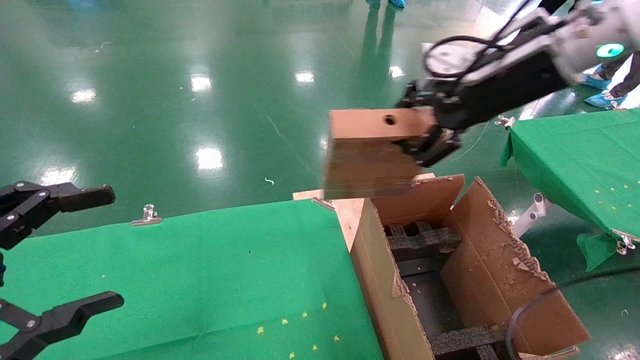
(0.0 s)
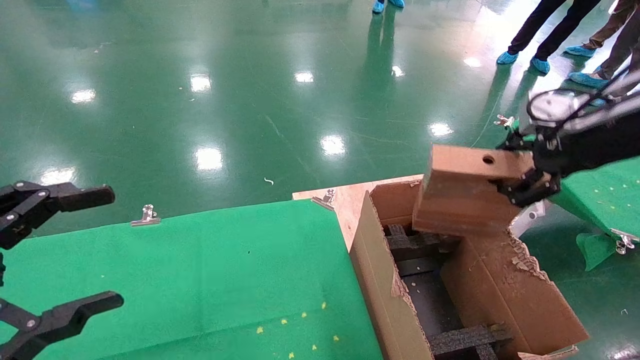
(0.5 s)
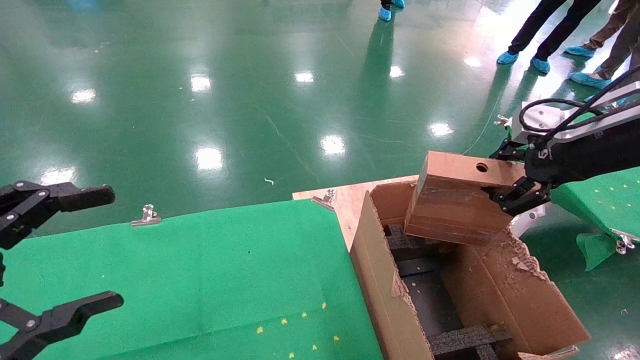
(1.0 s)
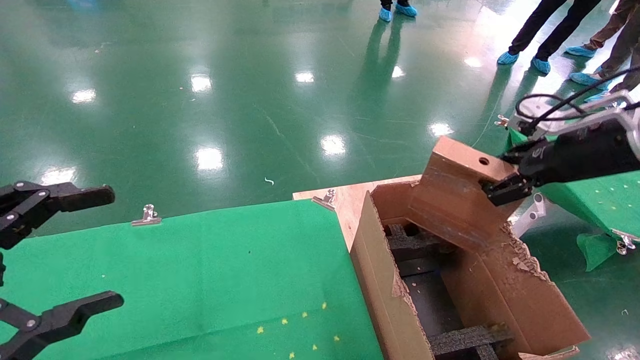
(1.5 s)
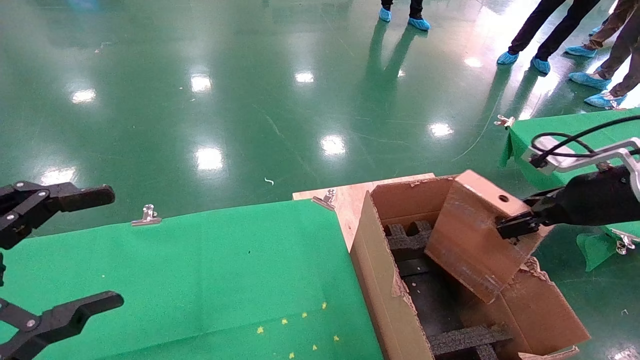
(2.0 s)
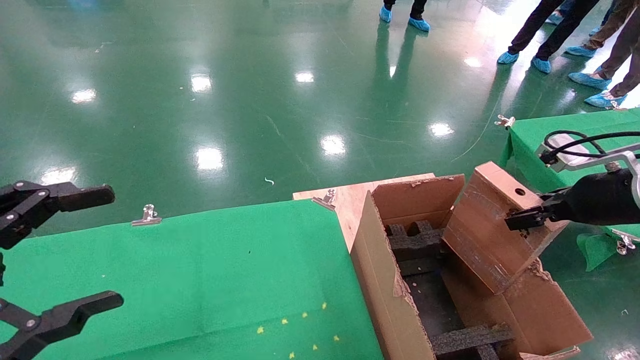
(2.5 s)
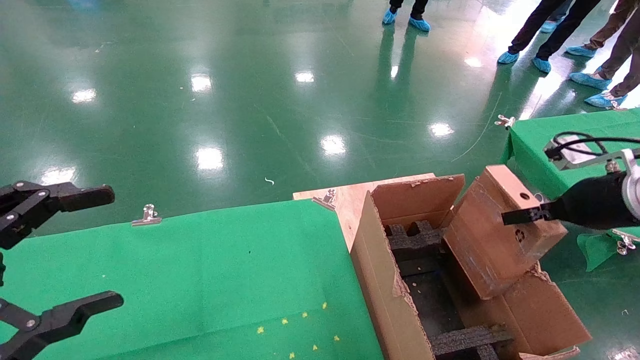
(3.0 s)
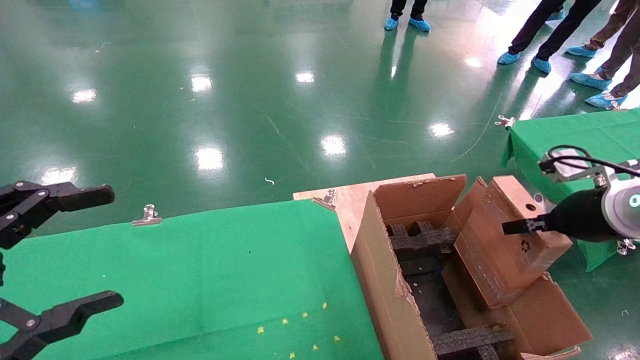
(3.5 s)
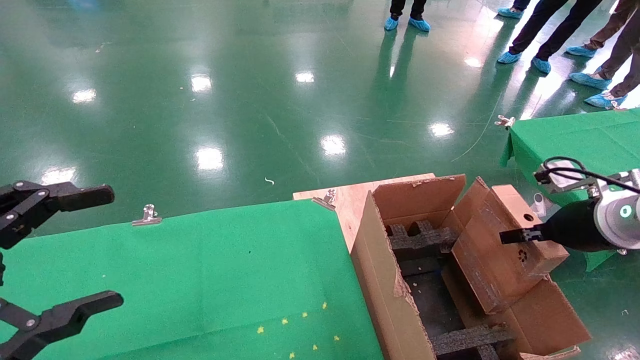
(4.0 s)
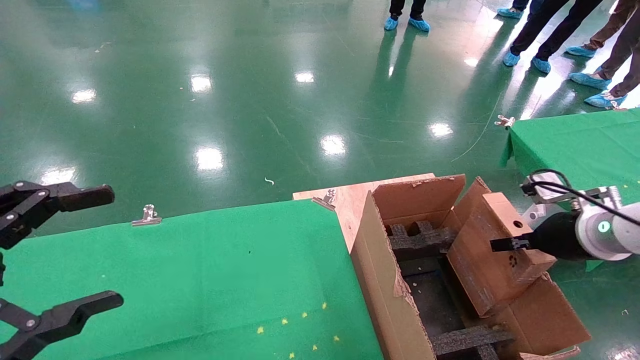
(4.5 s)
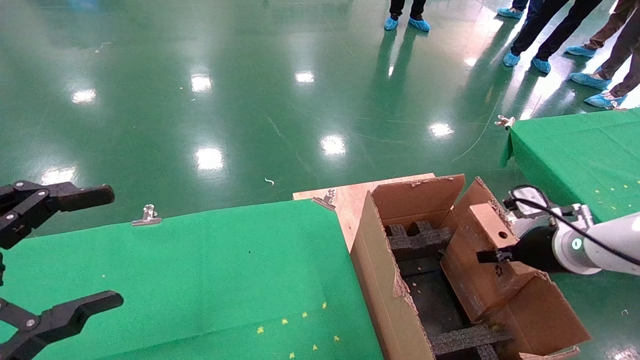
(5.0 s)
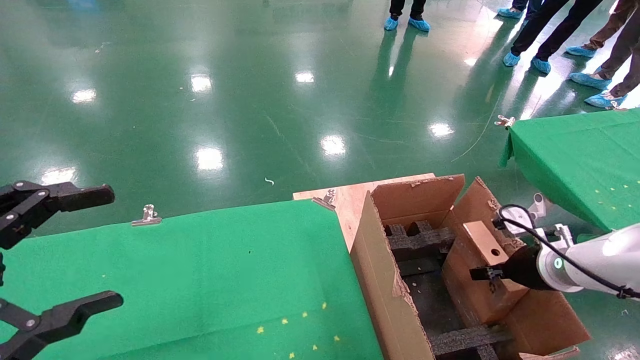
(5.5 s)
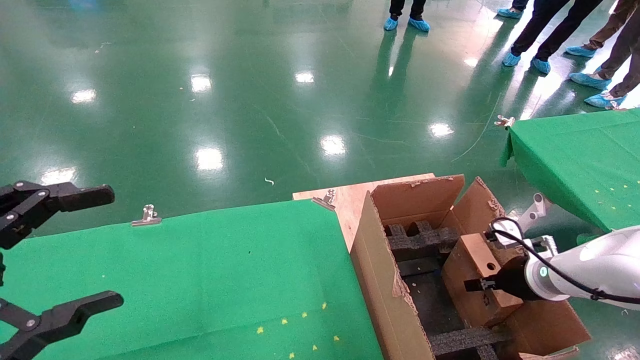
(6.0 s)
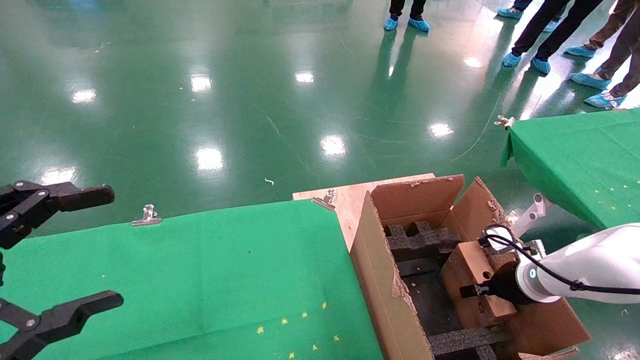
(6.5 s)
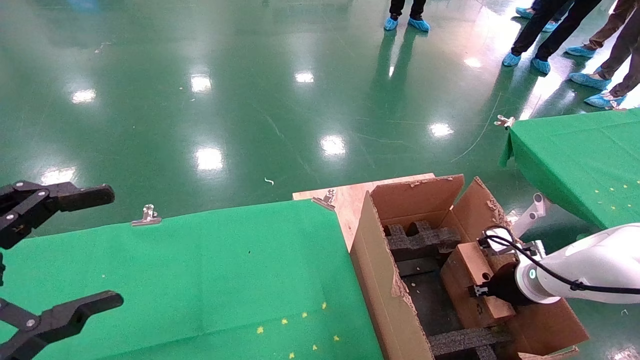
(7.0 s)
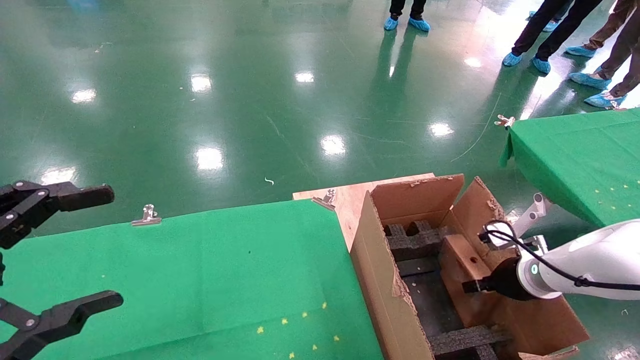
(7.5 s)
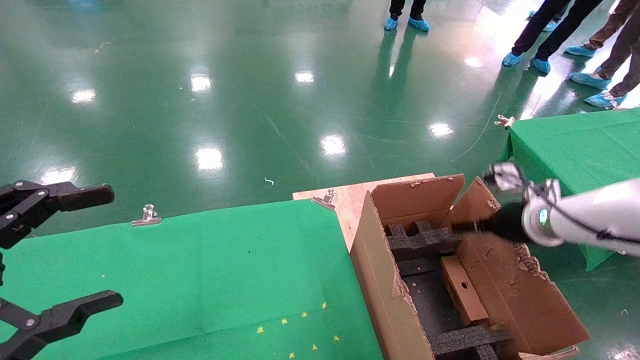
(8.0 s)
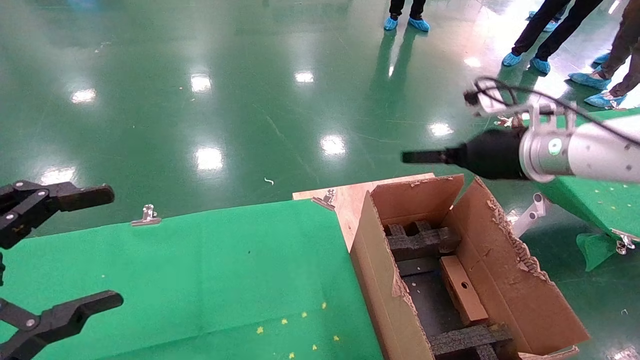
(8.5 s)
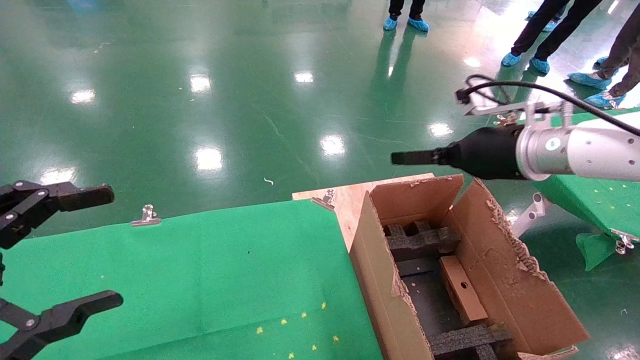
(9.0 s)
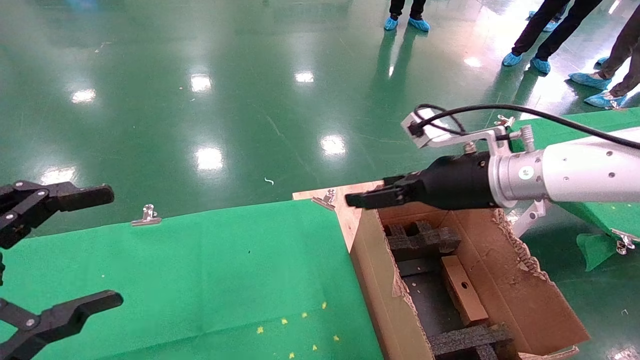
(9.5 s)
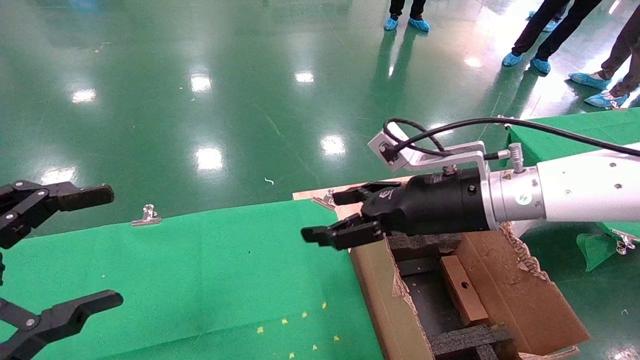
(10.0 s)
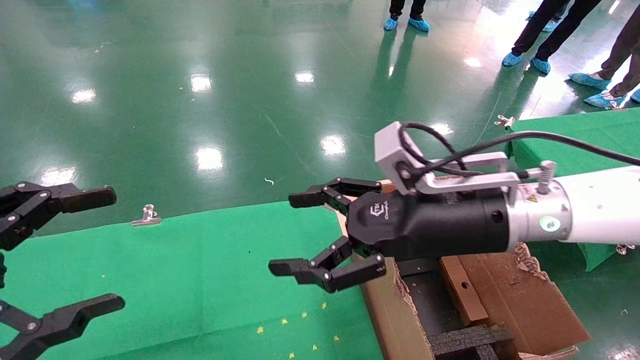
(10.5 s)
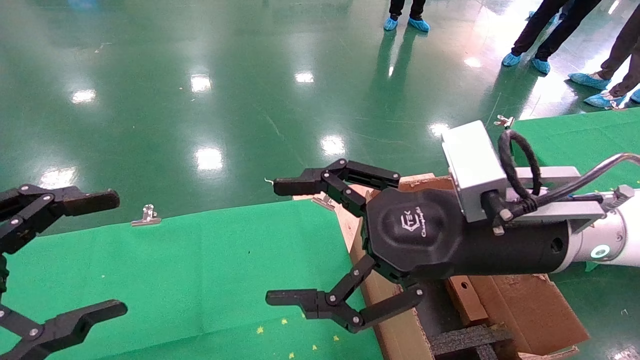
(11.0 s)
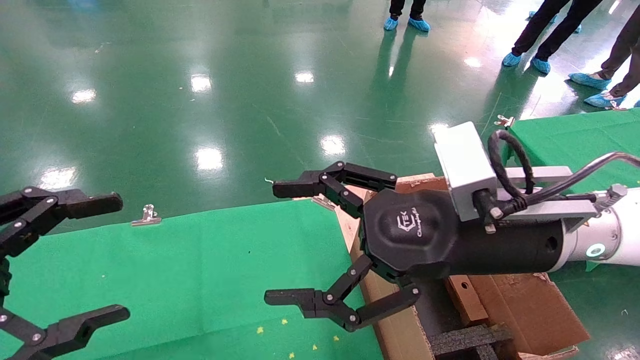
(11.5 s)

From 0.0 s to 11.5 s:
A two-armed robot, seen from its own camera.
Task of the whole recording: using a robotic arm to pick up a cardboard box and palace it the carton.
Step, from 0.0 s to 8.0 s: Place the mouse and the power cord paper box into the container.
From 0.0 s to 2.0 s: The right gripper moves downward and to the right, about 20 cm.
From 2.0 s to 4.0 s: The right gripper moves downward, approximately 5 cm.
From 4.0 s to 6.0 s: The right gripper shifts about 15 cm downward.
From 6.0 s to 7.5 s: The right gripper opens.
From 7.5 s to 9.5 s: The right gripper moves upward and to the left, some 25 cm, and opens its fingers.
From 9.5 s to 11.5 s: The right gripper goes about 10 cm backward and to the left.
